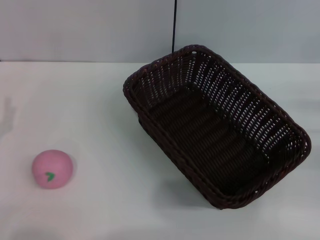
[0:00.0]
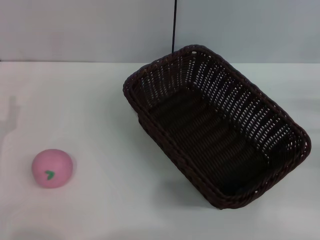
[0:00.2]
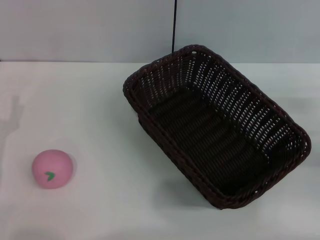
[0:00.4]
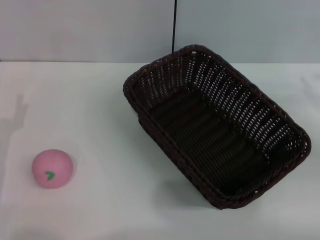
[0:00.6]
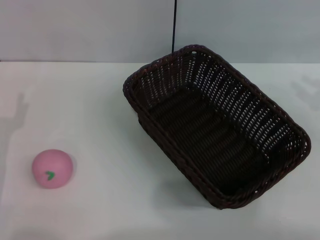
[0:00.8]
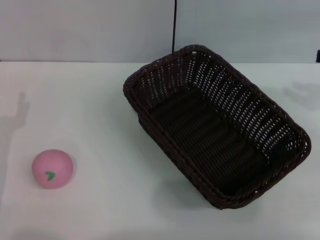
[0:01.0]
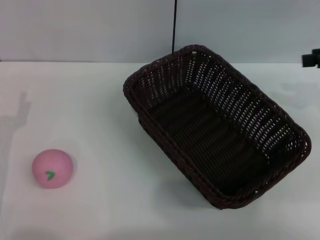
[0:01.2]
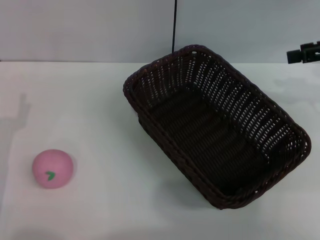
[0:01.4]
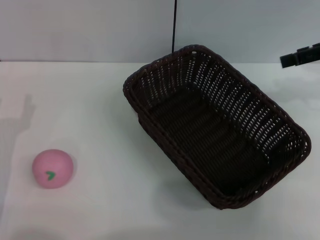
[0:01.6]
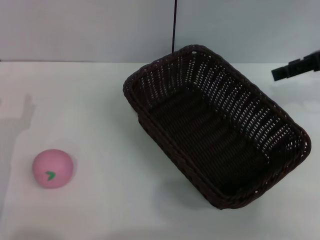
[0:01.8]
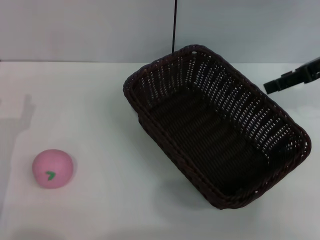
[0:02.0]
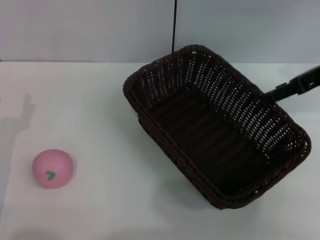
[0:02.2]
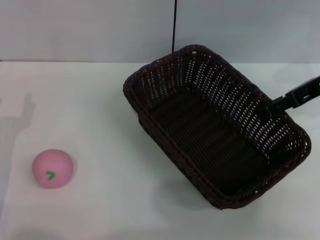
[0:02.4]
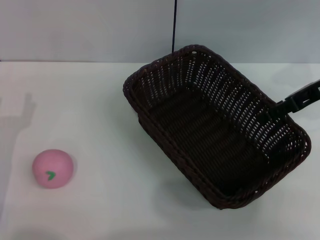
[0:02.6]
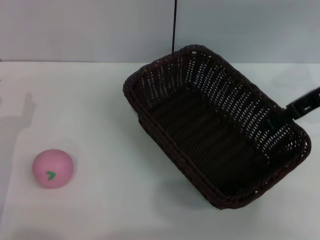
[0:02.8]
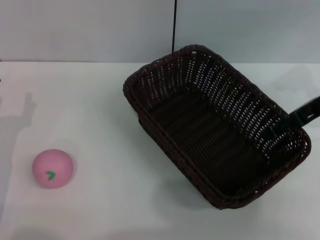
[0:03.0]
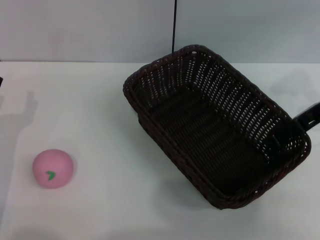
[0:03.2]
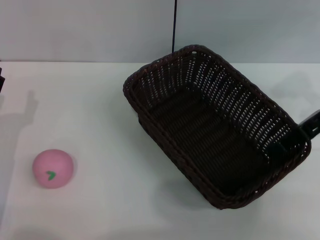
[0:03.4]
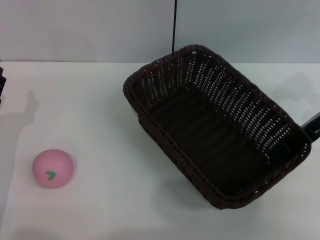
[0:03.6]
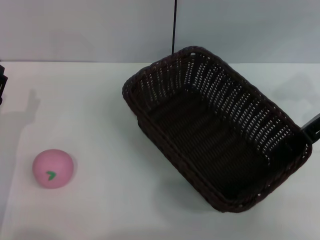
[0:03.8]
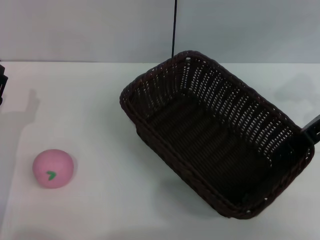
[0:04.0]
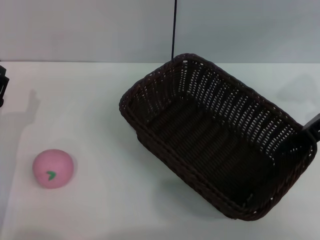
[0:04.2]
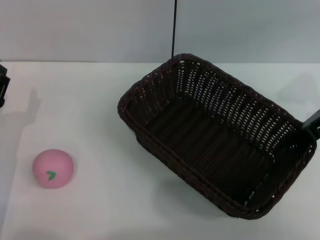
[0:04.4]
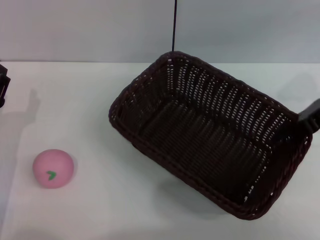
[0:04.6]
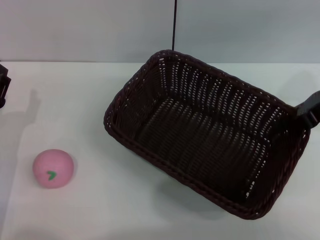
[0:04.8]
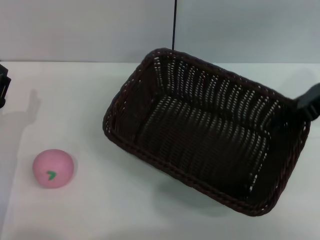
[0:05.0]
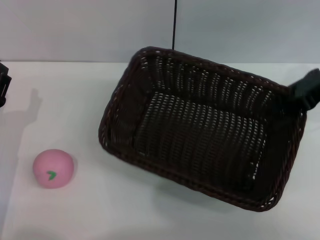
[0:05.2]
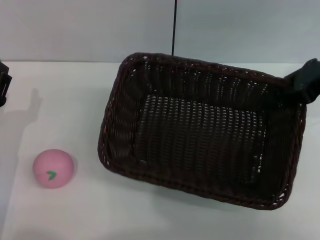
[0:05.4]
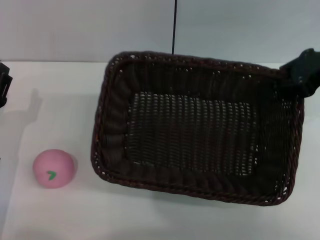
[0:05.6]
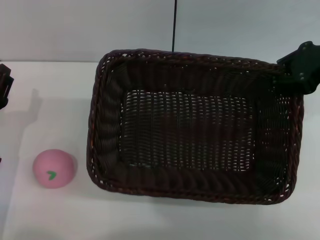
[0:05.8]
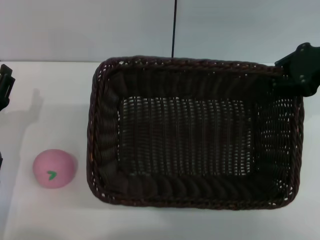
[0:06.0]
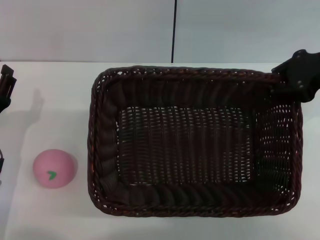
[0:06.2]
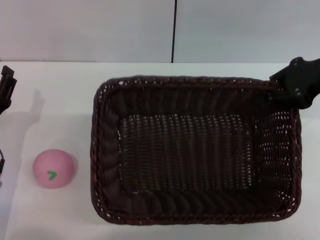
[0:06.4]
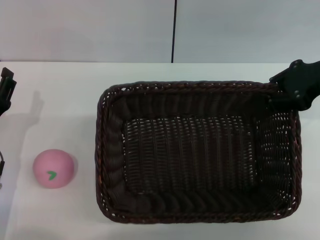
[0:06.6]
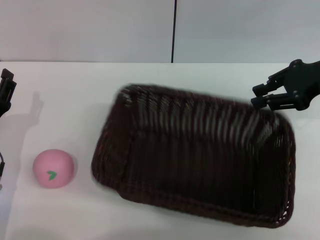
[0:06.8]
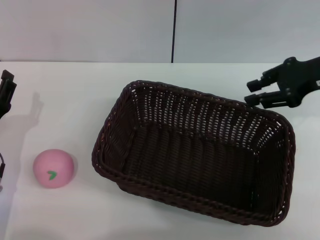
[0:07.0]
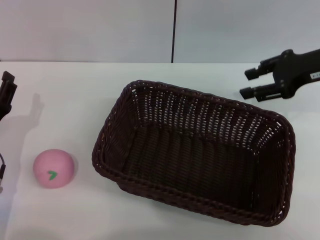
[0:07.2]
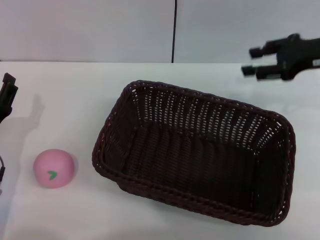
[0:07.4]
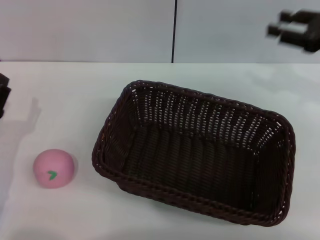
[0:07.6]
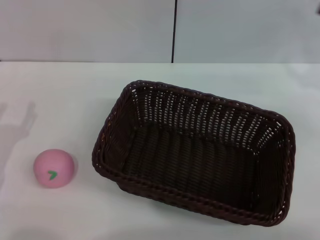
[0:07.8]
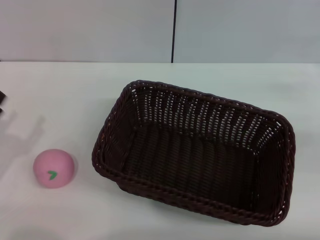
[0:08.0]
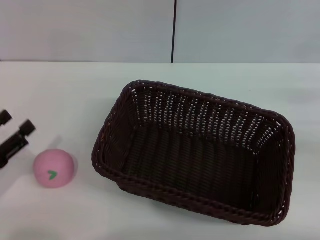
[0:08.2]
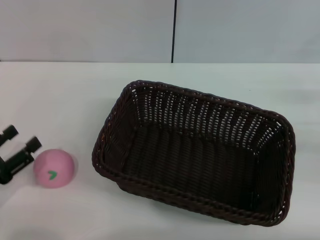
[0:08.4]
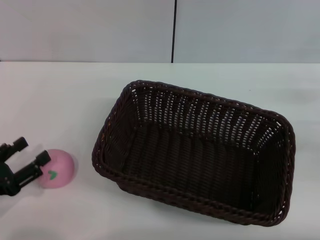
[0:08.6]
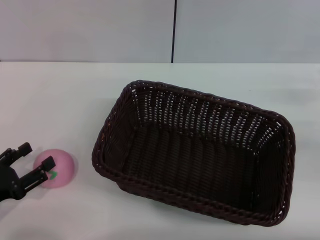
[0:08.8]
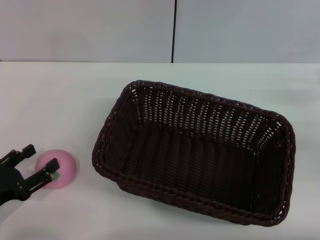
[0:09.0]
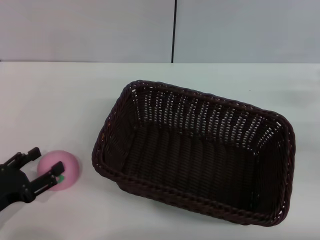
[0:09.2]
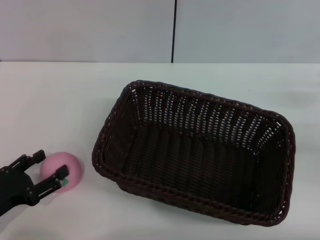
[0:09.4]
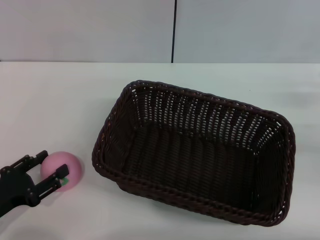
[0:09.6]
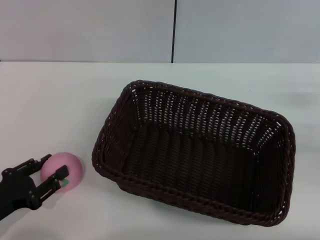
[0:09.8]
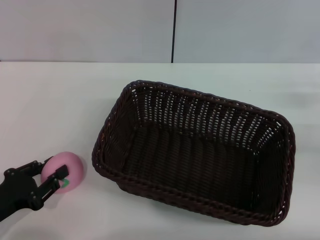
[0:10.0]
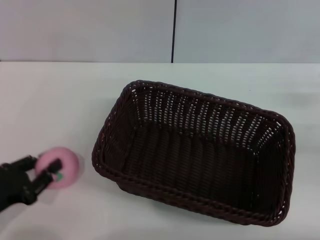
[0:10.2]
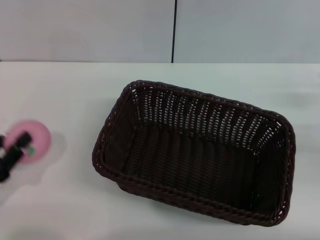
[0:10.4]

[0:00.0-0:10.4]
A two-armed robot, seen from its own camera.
Step, 0:00.0 to 0:04.6: Pick up the dark basket with the right gripper.
Step, 0:04.8 to 0:07.2: Place the dark basket in the center of view with the right gripper.
0:00.0 to 0:01.4: The right gripper travels upward and forward by approximately 20 cm.
0:01.4 to 0:03.0: The right gripper is displaced downward and to the left by some 10 cm, and opens its fingers.
0:03.0 to 0:04.4: The right gripper closes its fingers.
0:04.4 to 0:06.0: The right gripper shifts by about 5 cm.
0:06.0 to 0:07.4: The right gripper opens up.
0:07.4 to 0:09.0: The right gripper heads to the right, downward and backward, covering some 15 cm. Meanwhile the left gripper travels backward by approximately 5 cm.
0:09.0 to 0:10.4: The left gripper closes.

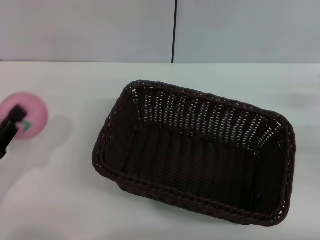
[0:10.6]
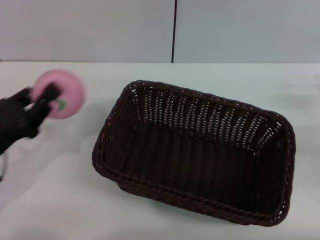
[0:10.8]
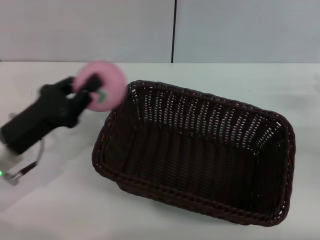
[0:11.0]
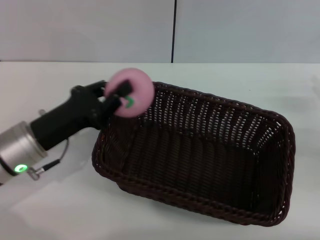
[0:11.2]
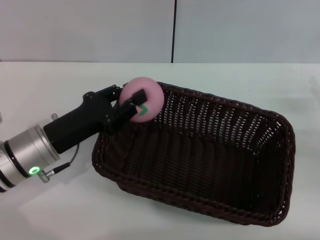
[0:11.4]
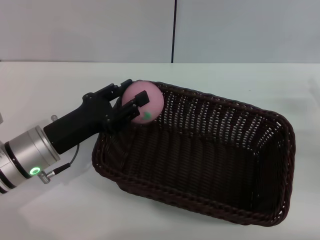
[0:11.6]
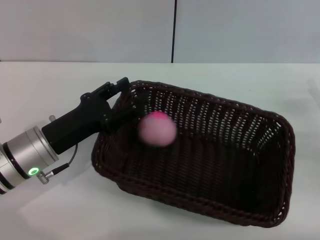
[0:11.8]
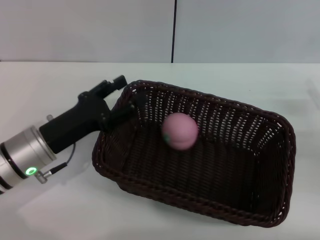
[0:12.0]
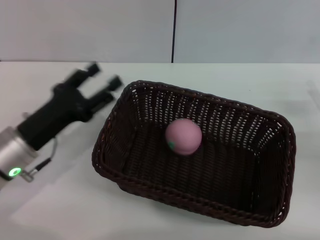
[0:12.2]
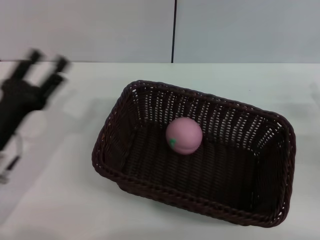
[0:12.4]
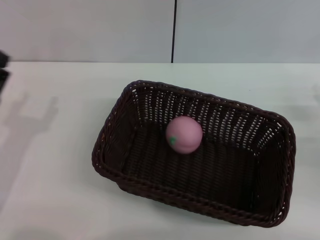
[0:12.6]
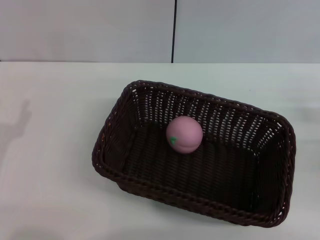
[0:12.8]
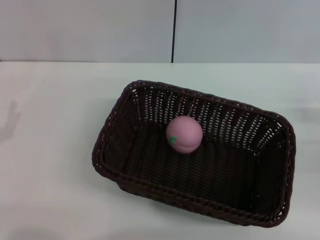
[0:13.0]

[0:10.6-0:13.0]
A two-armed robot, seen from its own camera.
Step, 0:10.8 to 0:12.2: Place the peach into the basket with the left gripper.
0:10.6 to 0:11.8: The left gripper goes approximately 15 cm to the right and forward, and opens its fingers.
0:11.8 to 0:13.0: The left gripper shifts some 15 cm to the left and backward.

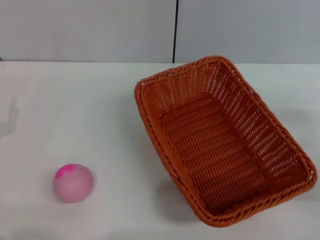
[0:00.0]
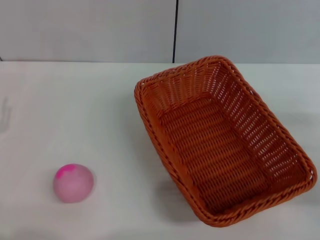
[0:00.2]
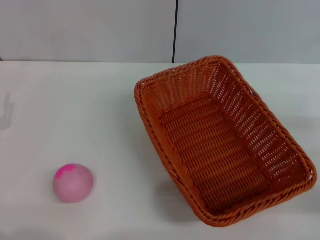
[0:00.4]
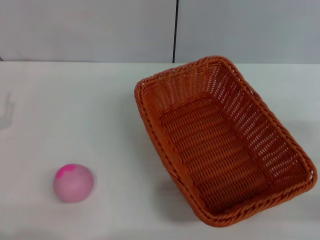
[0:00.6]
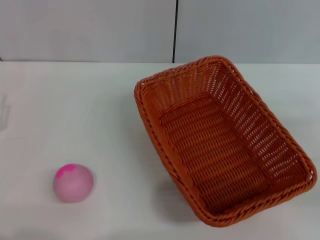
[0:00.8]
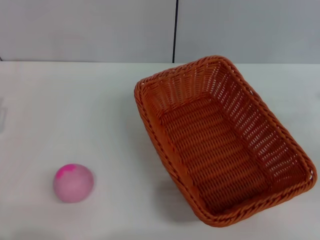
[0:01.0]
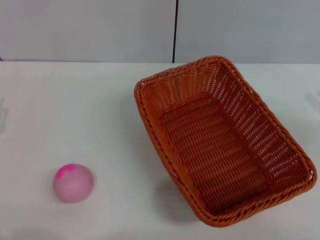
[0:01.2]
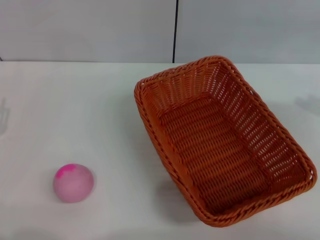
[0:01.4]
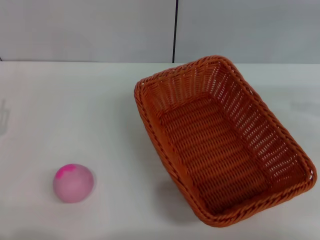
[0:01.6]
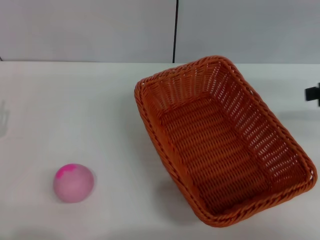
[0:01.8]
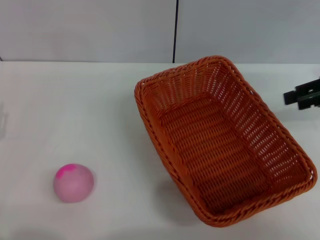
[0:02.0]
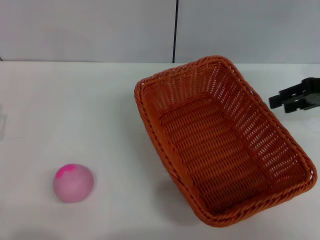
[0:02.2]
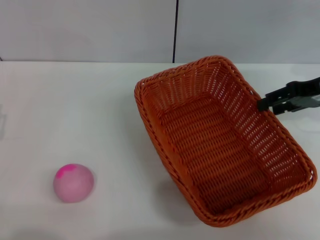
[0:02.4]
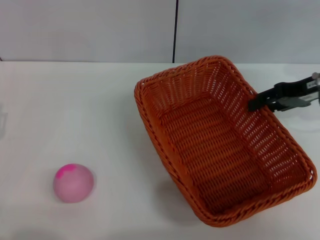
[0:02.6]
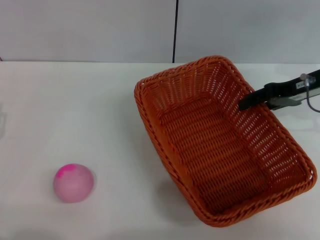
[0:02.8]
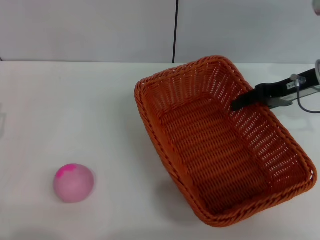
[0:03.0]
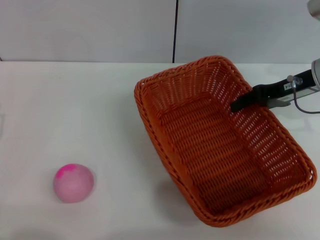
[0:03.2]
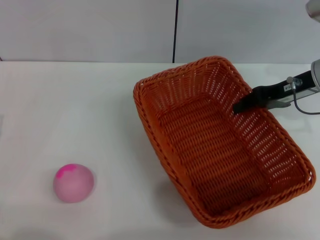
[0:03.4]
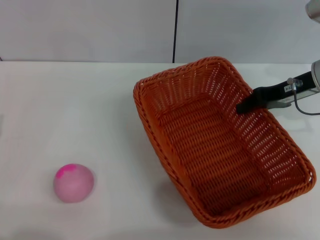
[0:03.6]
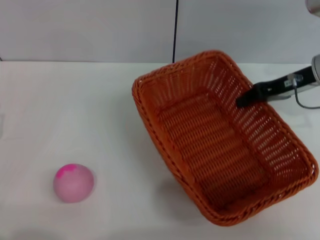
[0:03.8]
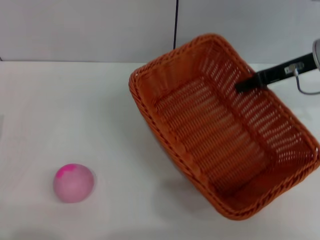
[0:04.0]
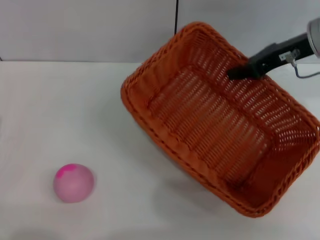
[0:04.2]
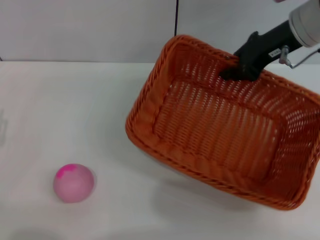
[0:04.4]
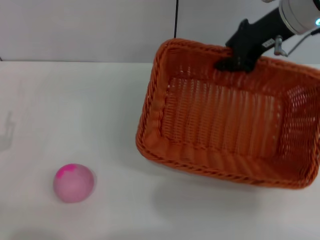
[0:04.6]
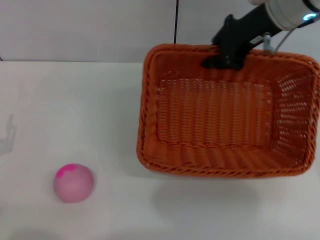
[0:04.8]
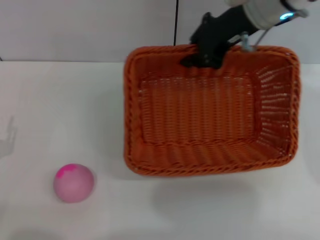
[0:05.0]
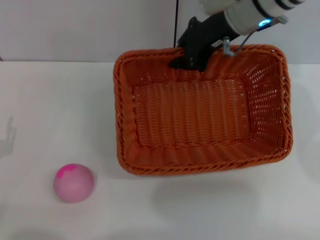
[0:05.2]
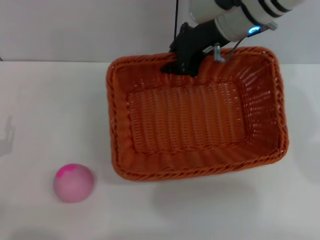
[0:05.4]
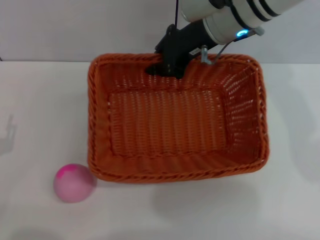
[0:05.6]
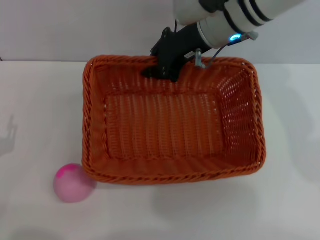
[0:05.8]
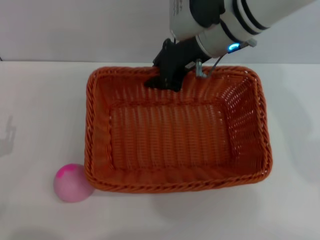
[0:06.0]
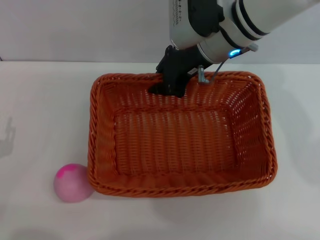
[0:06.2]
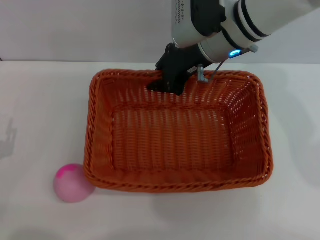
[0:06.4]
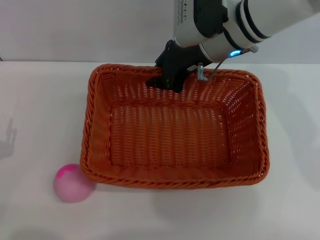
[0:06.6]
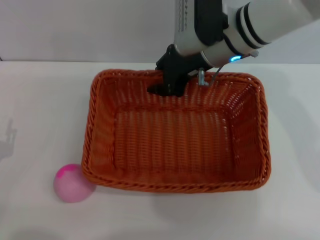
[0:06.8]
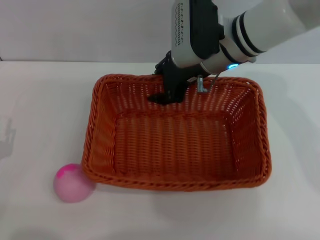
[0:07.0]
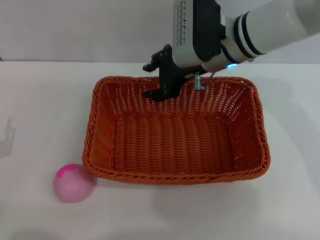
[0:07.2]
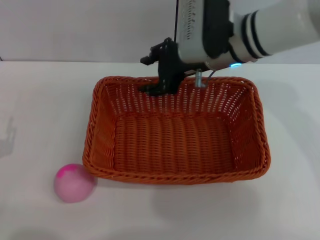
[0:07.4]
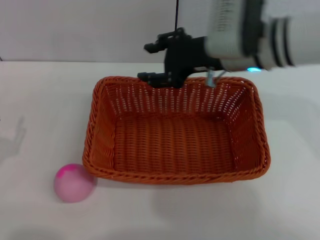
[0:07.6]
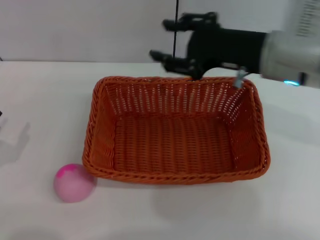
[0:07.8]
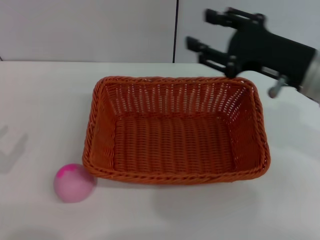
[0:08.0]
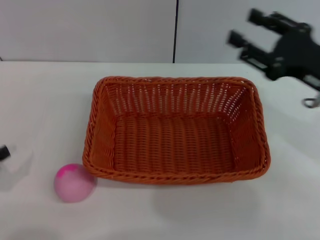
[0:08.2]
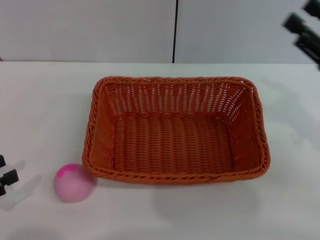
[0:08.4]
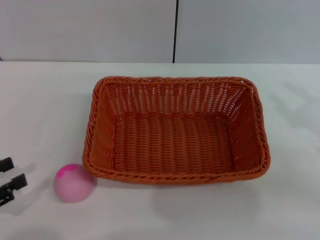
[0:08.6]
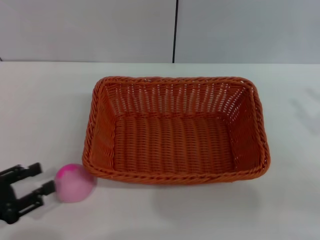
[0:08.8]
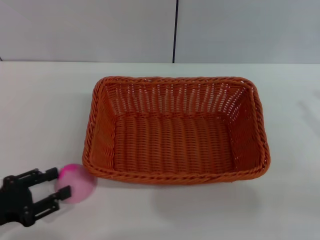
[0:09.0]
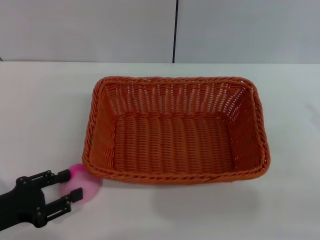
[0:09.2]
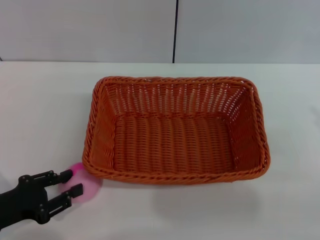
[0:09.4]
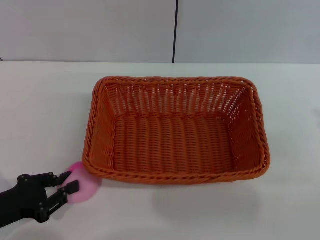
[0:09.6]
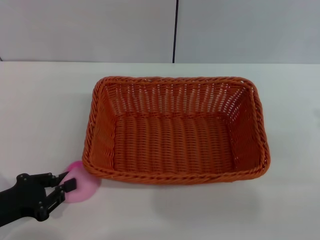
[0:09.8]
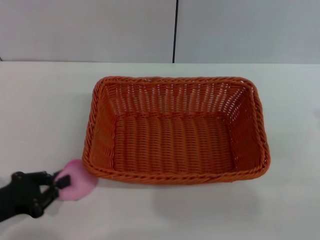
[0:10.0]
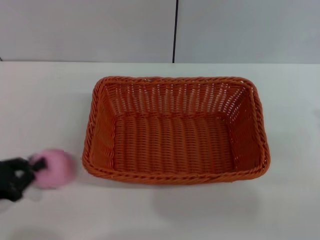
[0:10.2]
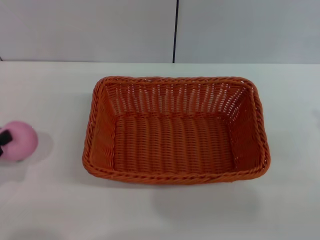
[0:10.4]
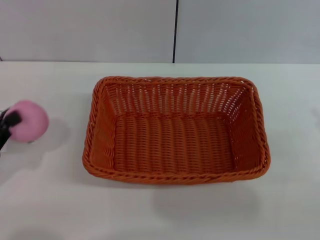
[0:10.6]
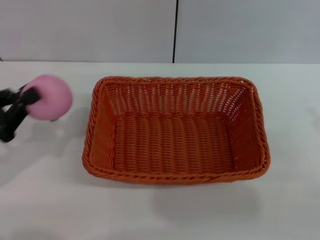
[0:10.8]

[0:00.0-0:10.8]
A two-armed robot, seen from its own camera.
Step, 0:00.0 to 0:04.0: Pick up the light basket with the right gripper.
Step, 0:04.4 to 0:07.4: Place the light basket in the center of view with the right gripper.
Step, 0:07.6 to 0:10.4: Pick up the peach with the left gripper.
0:01.6 to 0:03.0: The right gripper goes approximately 15 cm to the left, forward and downward.
0:03.0 to 0:04.6: The right gripper moves upward and to the left, roughly 10 cm, and closes its fingers.
0:04.6 to 0:06.2: The right gripper moves to the left and downward, roughly 10 cm.
0:06.2 to 0:07.8: The right gripper travels backward and to the right by approximately 10 cm, and opens its fingers; the left gripper shifts by some 5 cm.
0:07.8 to 0:09.2: The right gripper heads to the right and backward, covering approximately 25 cm.
0:09.2 to 0:10.8: The left gripper goes approximately 10 cm upward and forward, and closes.
